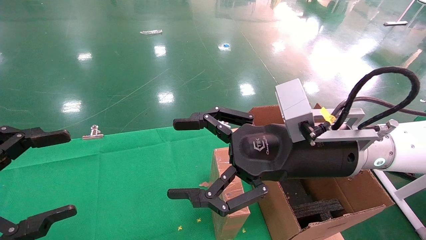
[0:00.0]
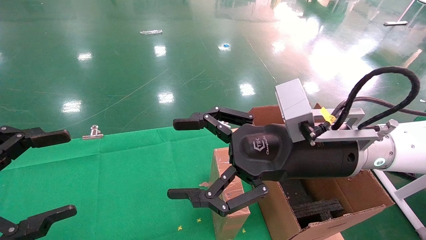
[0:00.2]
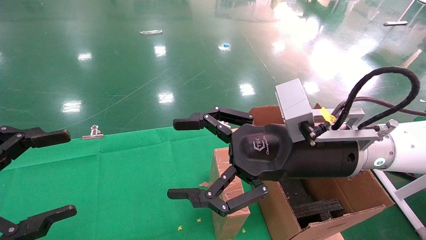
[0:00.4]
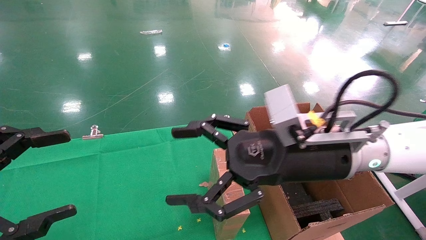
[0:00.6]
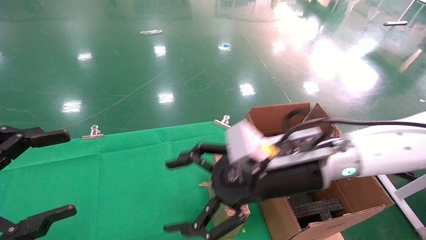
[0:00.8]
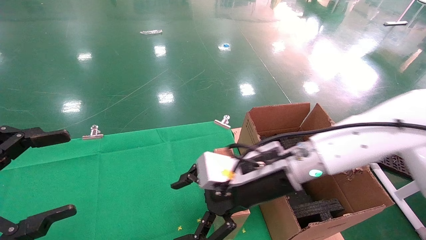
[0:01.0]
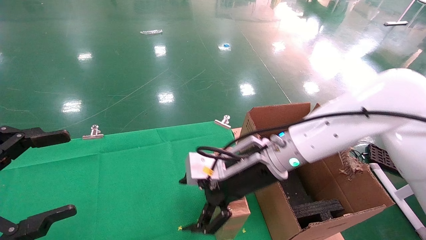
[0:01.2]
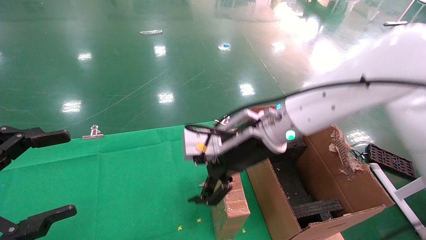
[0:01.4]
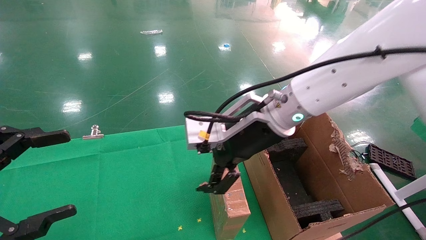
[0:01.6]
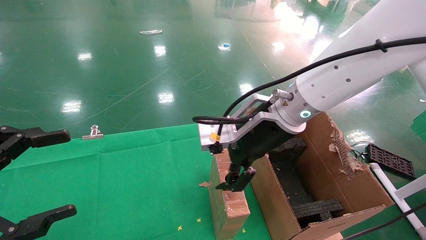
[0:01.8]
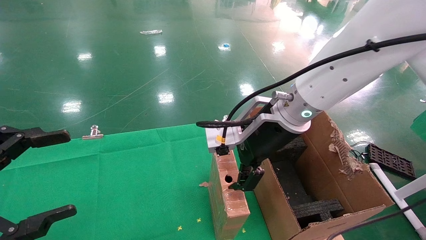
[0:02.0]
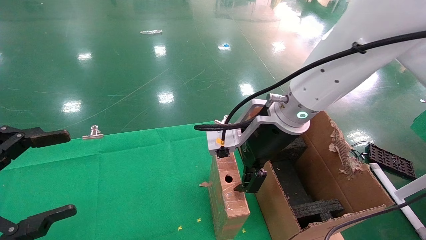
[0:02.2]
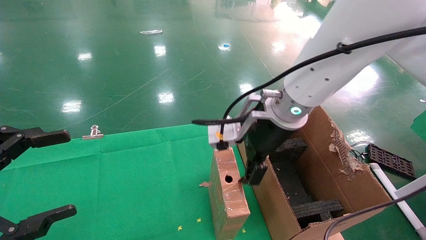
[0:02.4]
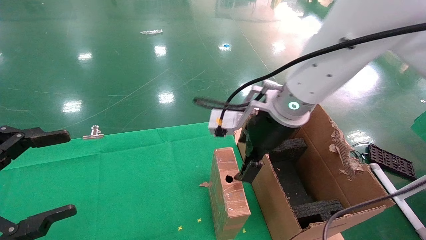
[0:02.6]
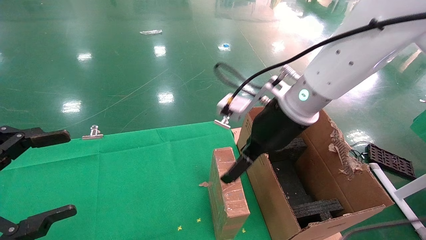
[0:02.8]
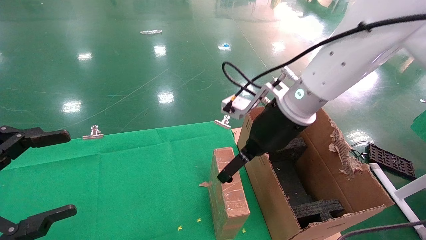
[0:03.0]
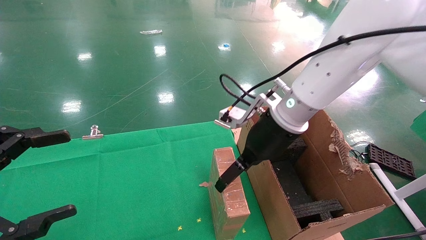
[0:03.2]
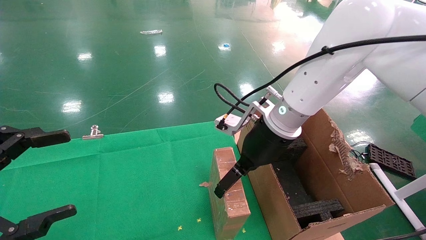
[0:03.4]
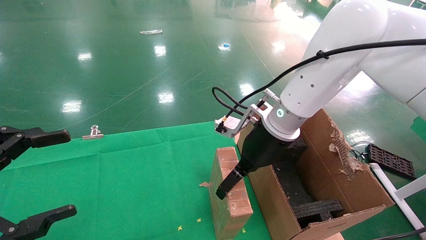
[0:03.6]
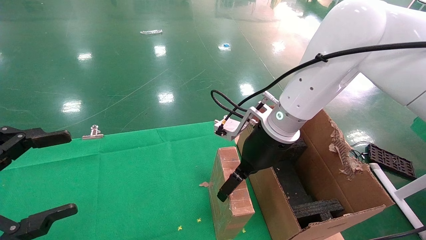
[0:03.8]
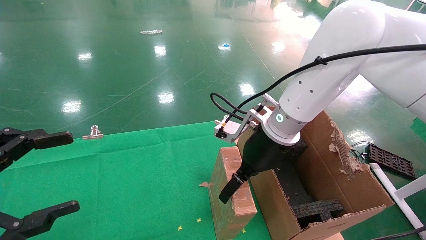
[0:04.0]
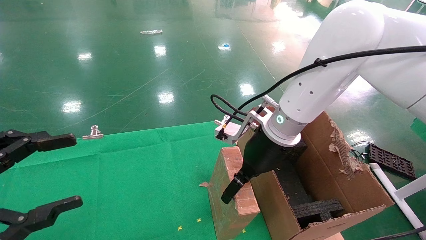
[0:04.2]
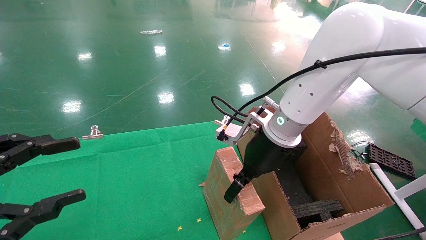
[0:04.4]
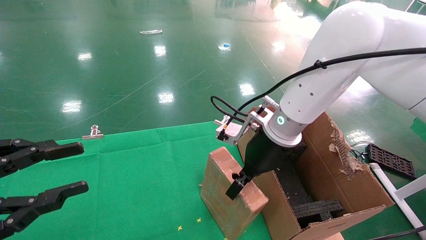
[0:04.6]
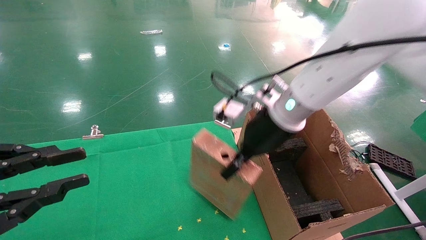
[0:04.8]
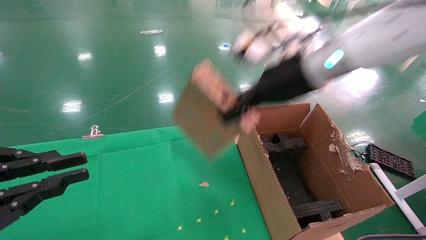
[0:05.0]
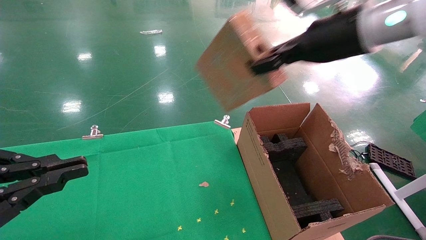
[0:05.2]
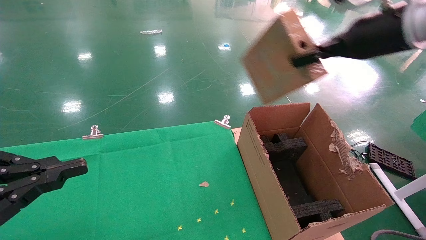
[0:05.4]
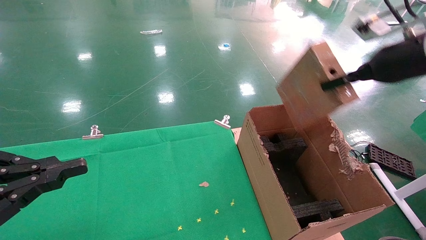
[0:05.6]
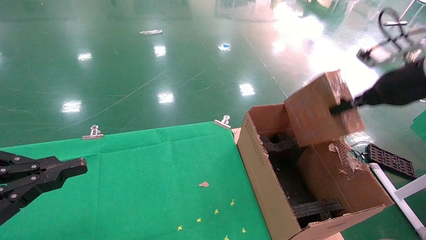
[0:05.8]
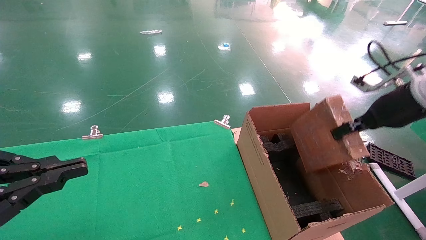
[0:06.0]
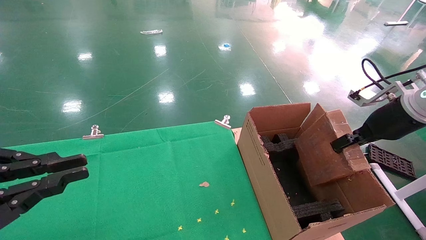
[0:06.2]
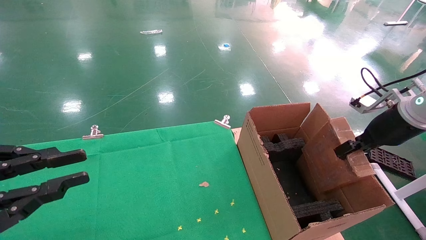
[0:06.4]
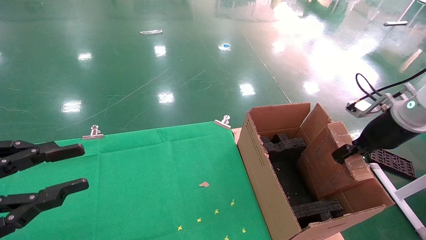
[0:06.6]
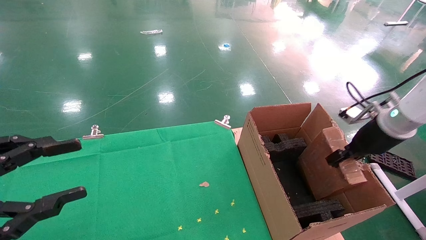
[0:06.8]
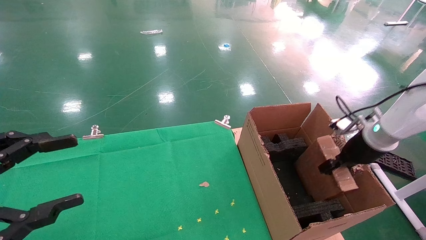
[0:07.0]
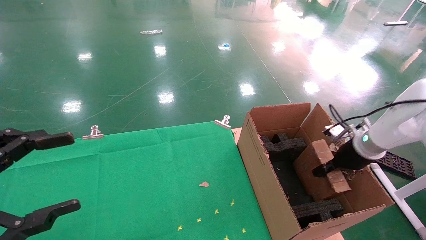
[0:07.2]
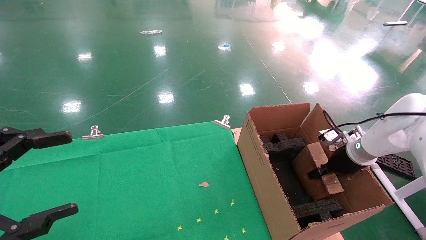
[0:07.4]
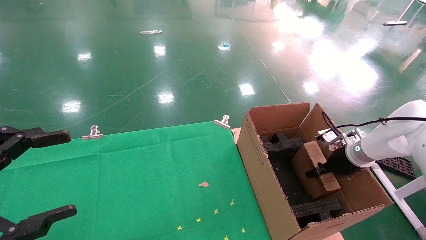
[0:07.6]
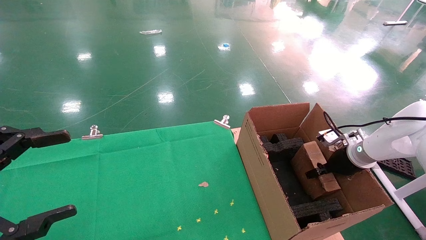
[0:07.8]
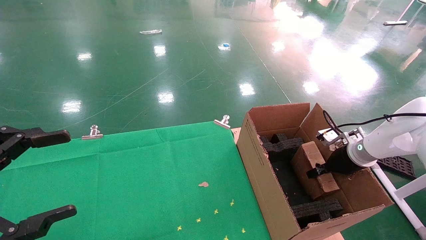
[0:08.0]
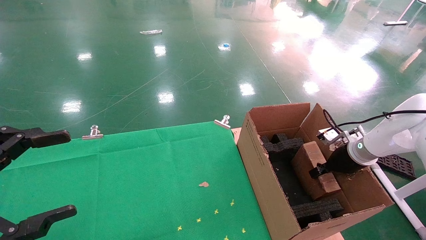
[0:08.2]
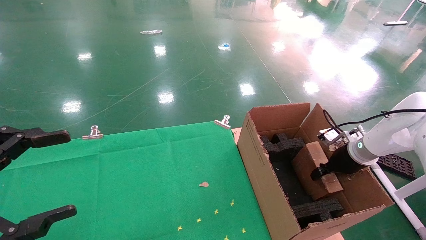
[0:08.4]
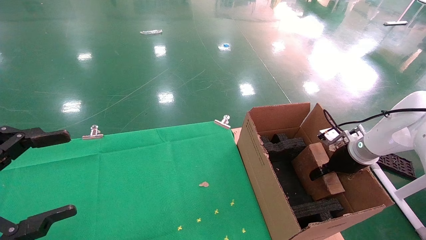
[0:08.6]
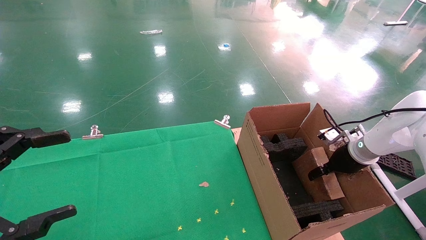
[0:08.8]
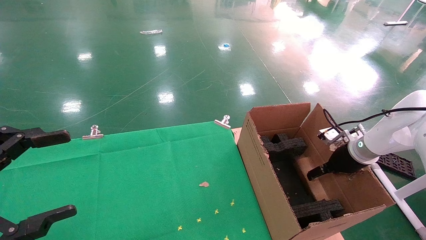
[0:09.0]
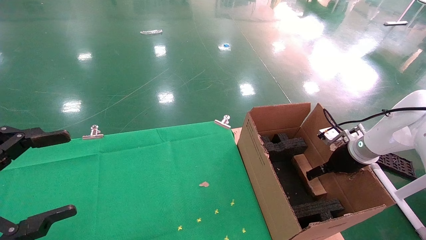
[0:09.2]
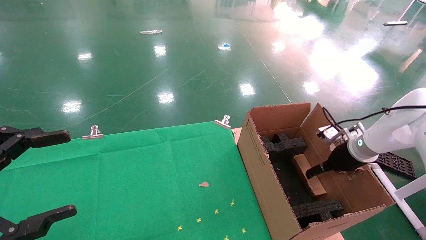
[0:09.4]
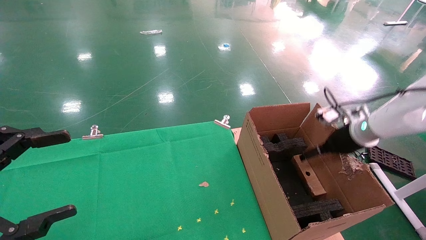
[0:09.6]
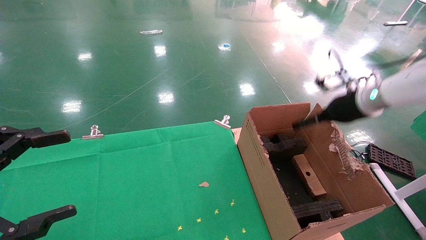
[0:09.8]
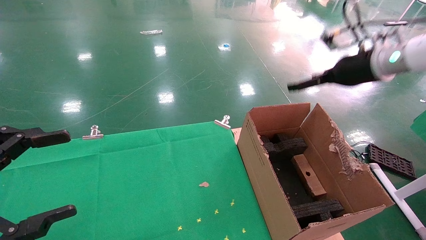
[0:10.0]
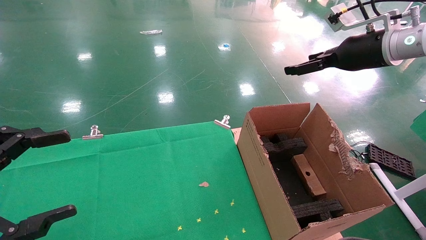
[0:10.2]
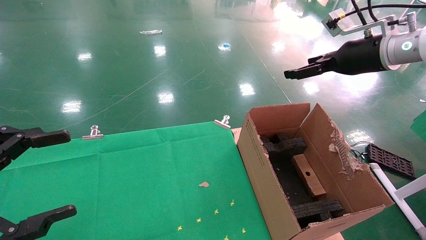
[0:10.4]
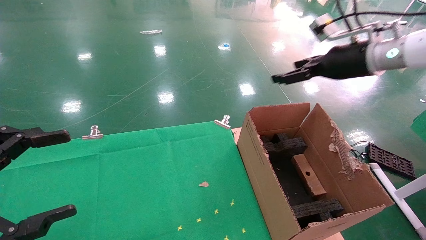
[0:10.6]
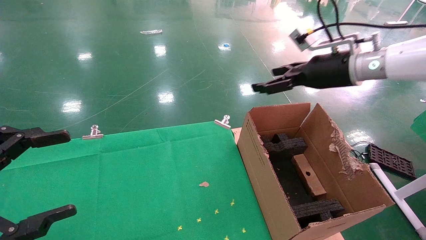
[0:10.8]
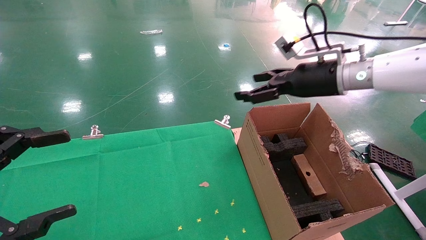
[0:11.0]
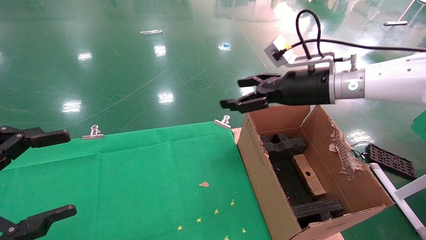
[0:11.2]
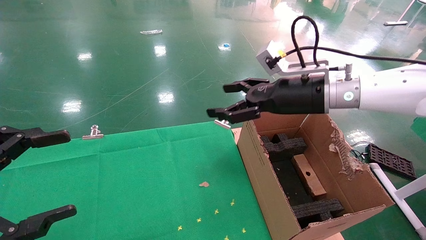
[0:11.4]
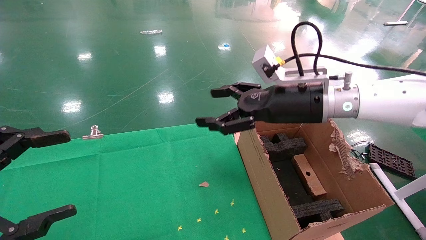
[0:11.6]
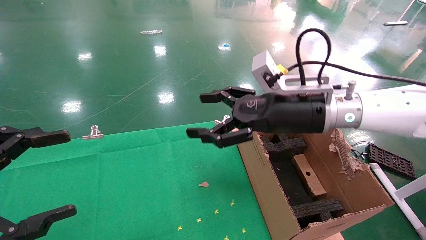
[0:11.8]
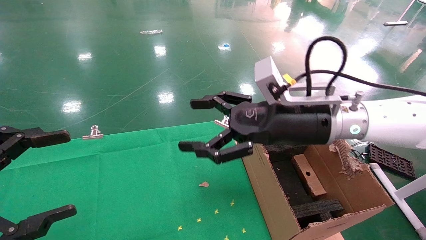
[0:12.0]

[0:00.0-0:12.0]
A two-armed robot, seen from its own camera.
Task of the whole recording: using a robotic arm to pick up a cardboard box and palace it the carton.
Step, 0:00.8 to 0:04.8: Pick up the mouse and the power cord paper box.
Step, 0:05.0 to 0:09.2: Place the mouse and the power cord paper box into the container.
0:00.0 to 0:01.6: The right gripper moves forward and to the left, approximately 10 cm.
0:03.0 to 0:04.4: The right gripper closes its fingers.
0:04.4 to 0:06.0: The left gripper closes, while the right gripper shifts some 25 cm to the right, and closes.
0:06.0 to 0:07.6: The left gripper opens. Meanwhile the right gripper goes approximately 20 cm downward and forward.
0:07.6 to 0:09.0: The right gripper opens up.
0:09.0 to 0:10.4: The right gripper travels upward by about 25 cm.
0:10.4 to 0:12.0: The right gripper moves to the left, downward and backward, roughly 20 cm.

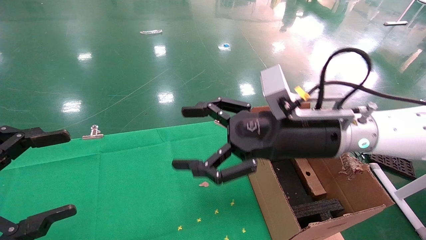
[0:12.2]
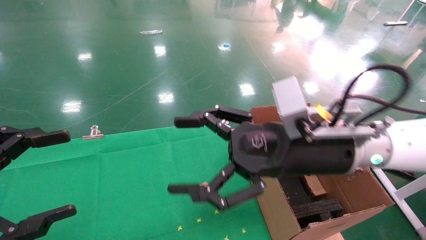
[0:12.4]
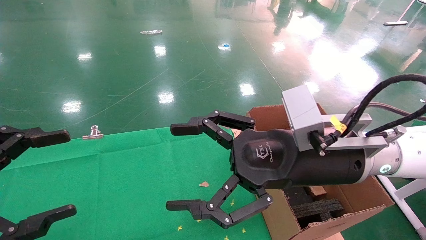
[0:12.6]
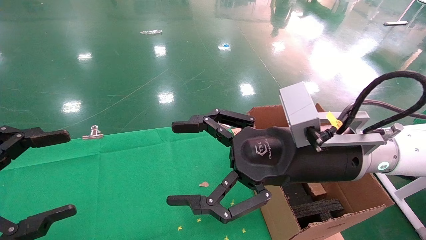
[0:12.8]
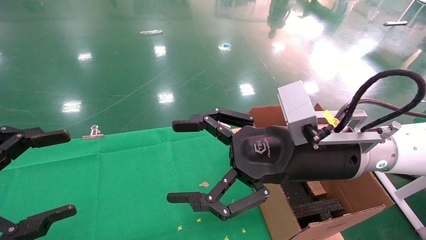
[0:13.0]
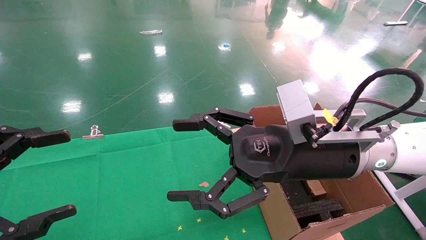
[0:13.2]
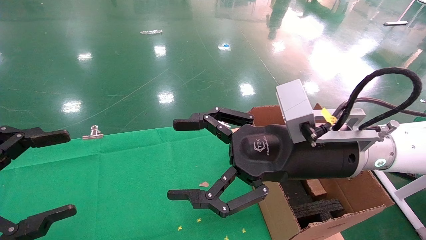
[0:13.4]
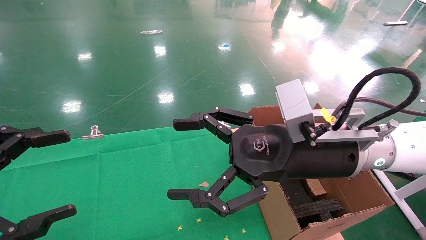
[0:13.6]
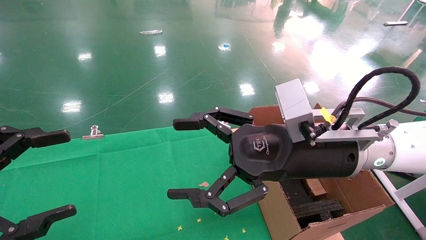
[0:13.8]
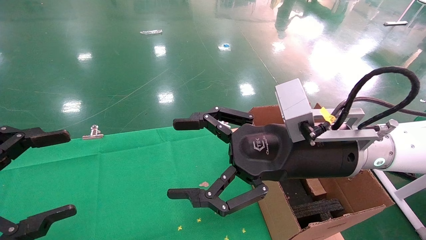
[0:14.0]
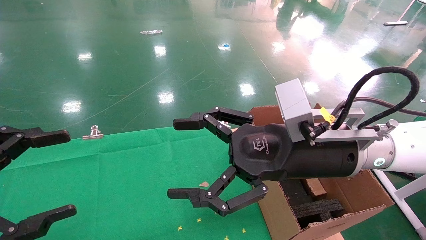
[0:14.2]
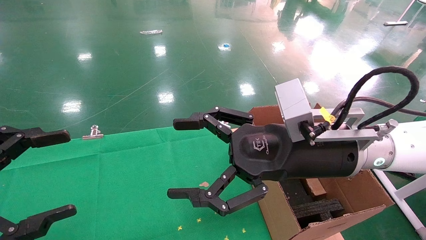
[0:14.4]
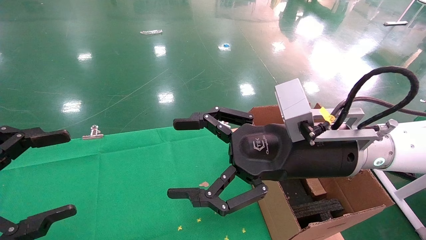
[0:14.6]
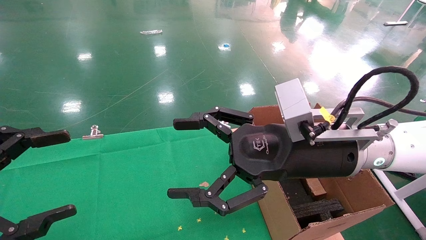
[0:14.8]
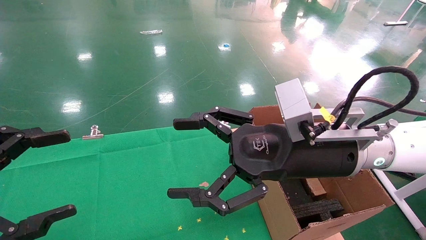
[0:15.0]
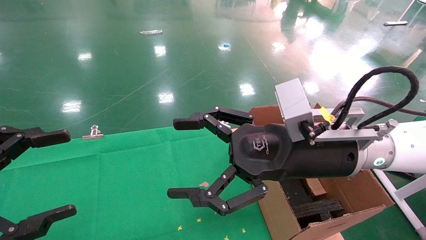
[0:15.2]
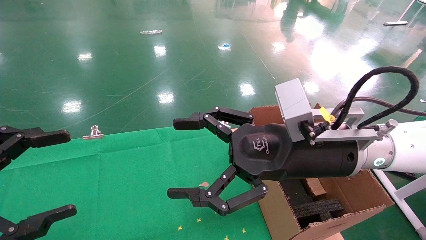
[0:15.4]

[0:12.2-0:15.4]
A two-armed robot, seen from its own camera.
Task of the whole recording: using a robotic arm to pick up a cardboard box and palace it the carton.
0:12.2 to 0:13.8: The grippers move only a little.
0:13.8 to 0:15.4: Both grippers stay about where they are.
